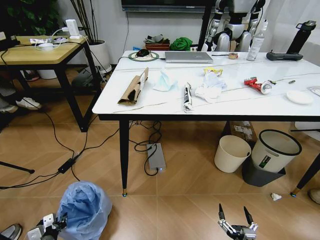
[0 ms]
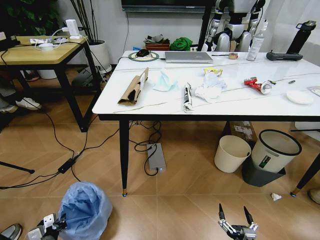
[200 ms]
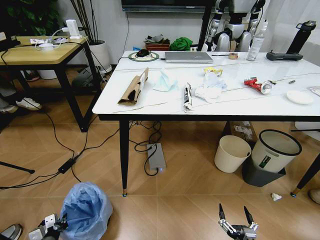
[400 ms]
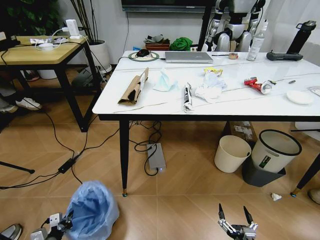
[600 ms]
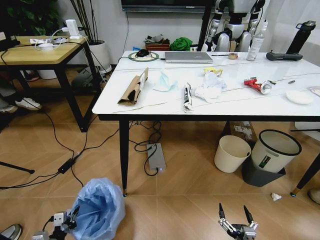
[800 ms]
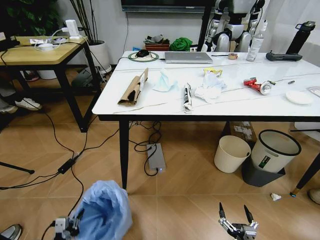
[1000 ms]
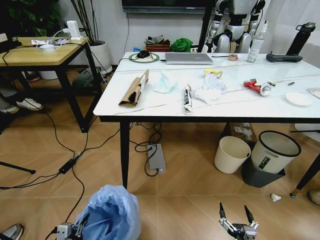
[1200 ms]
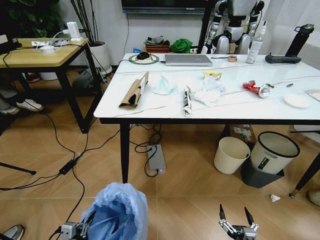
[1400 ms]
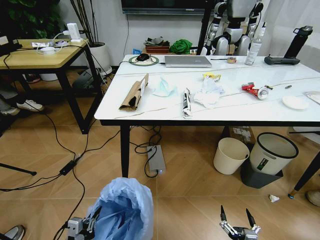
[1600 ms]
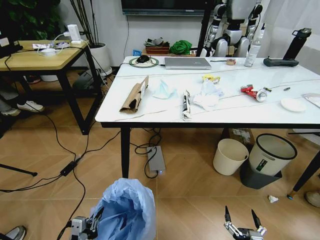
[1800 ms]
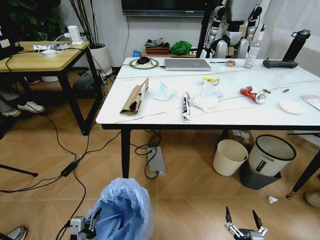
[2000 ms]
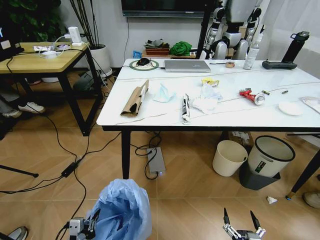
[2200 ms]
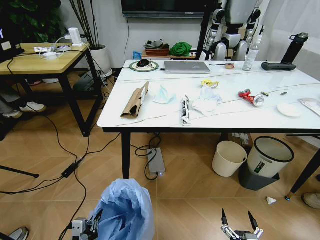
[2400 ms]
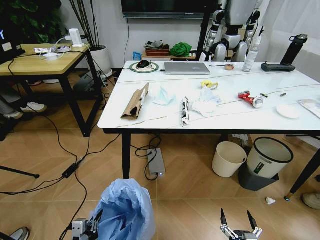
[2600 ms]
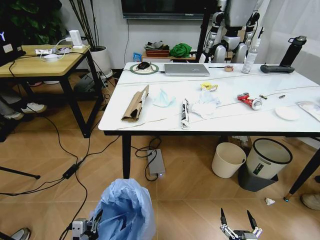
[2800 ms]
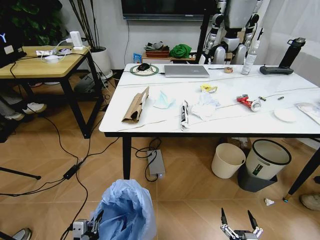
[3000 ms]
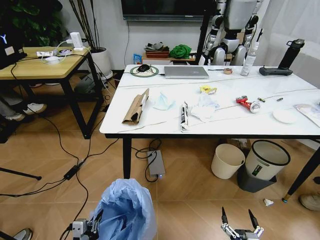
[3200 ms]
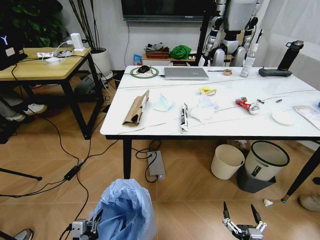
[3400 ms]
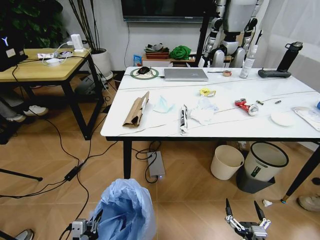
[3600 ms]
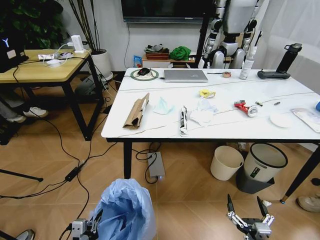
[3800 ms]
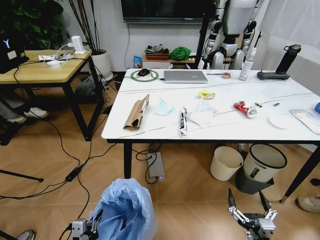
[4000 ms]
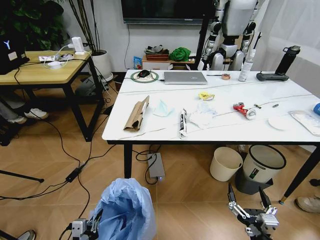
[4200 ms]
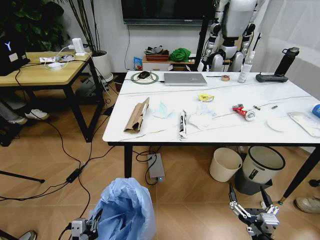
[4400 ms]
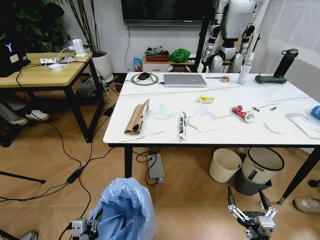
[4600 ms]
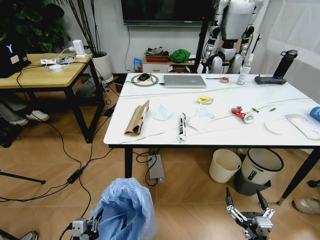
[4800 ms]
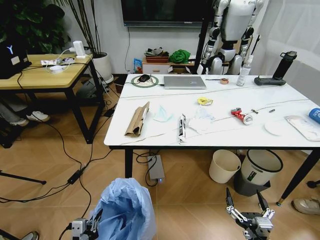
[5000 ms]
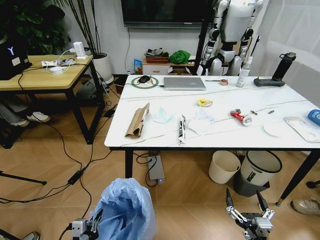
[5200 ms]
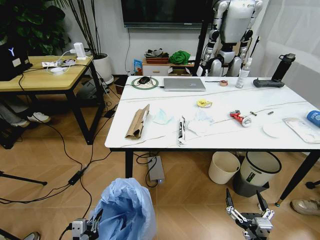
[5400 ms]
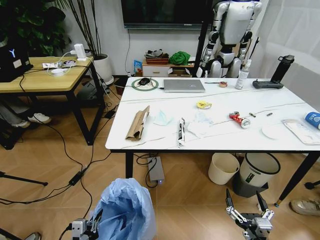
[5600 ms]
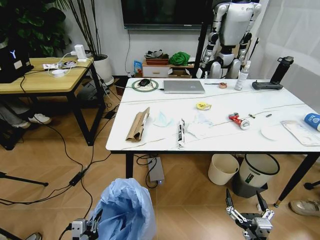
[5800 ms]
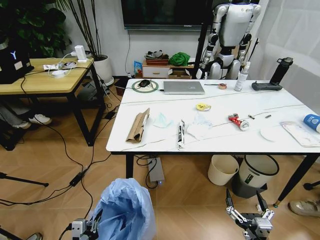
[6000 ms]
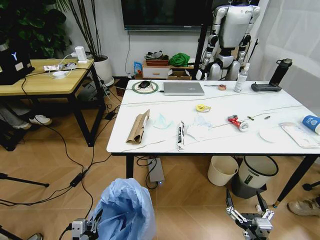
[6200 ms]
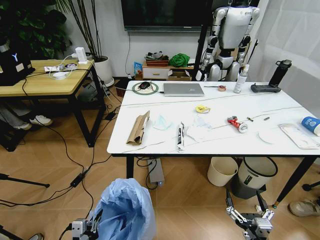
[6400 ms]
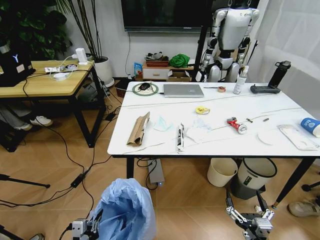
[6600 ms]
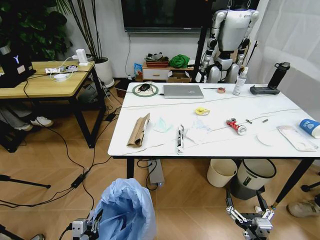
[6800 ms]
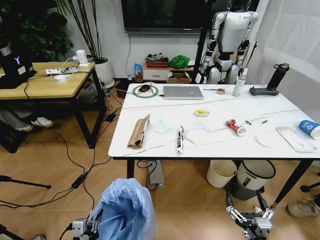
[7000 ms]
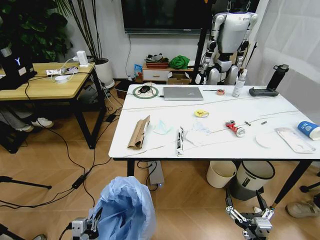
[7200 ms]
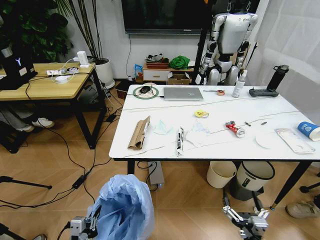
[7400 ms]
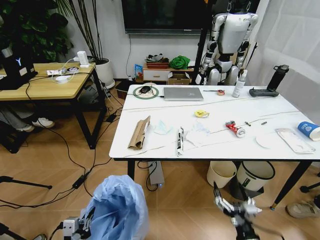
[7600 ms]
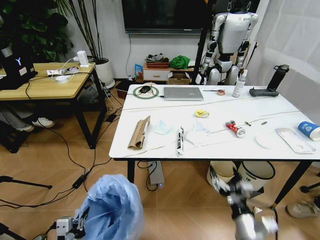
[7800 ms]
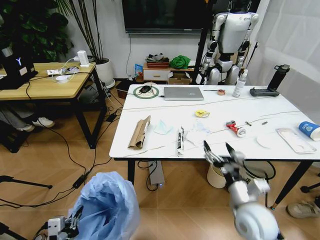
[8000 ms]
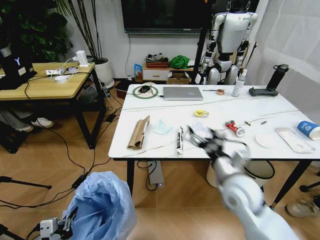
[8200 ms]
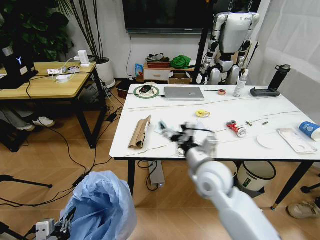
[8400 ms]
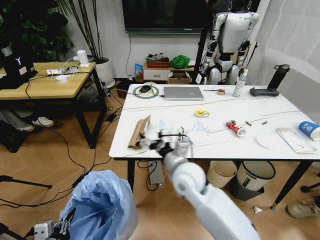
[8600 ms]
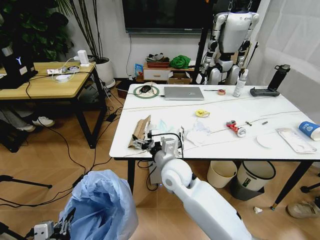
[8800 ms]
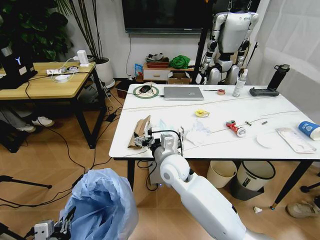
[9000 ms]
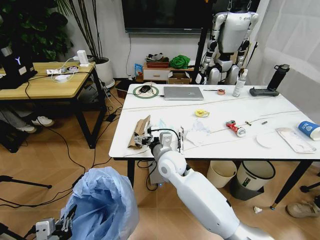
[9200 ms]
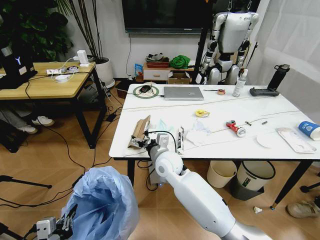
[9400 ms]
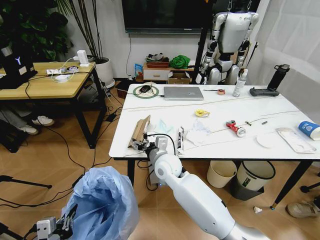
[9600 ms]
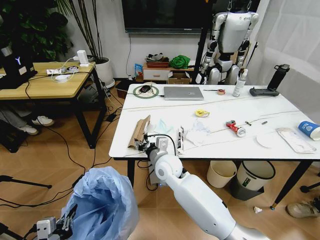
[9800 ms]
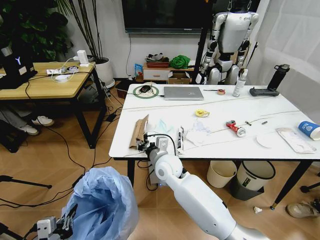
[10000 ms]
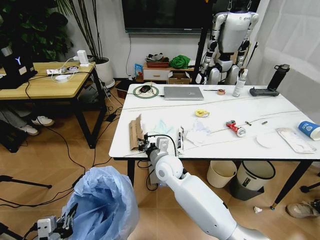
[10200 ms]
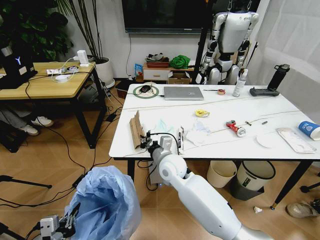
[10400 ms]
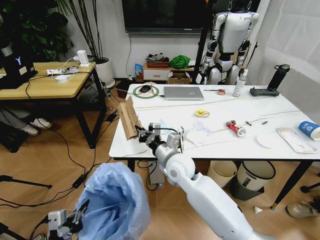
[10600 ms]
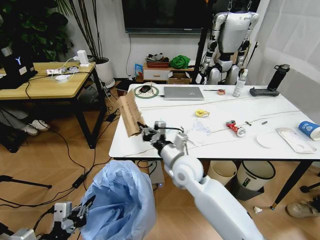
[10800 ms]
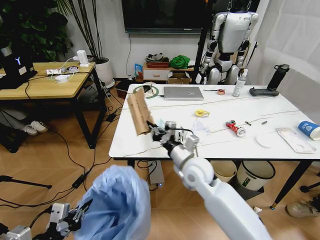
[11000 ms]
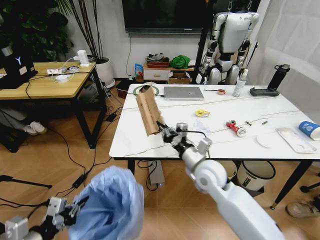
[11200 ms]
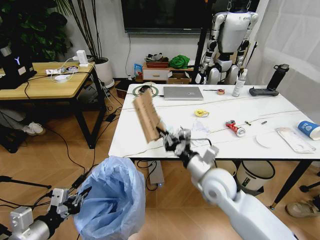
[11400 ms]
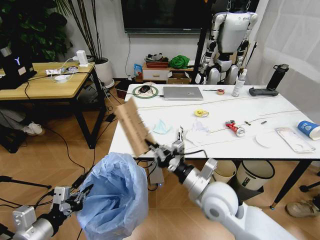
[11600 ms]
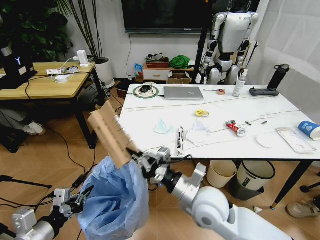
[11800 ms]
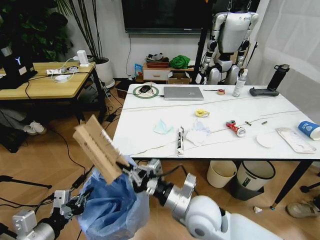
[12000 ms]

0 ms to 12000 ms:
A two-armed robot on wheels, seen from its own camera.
Task of the whole recording: Pick up the trash bin and place the trash from the table into it.
0 ms to 1600 ms: The left gripper is displaced upward, to the right and backward by about 20 cm.
3000 ms to 4400 ms: The right gripper is displaced upward by approximately 15 cm.
7600 ms to 9000 ms: The right gripper travels forward, to the left and upward by roughly 40 cm. Meanwhile the left gripper moves upward, about 5 cm.
9000 ms to 10400 ms: The right gripper closes up.
10400 ms to 12000 ms: The left gripper travels forward and upward by some 10 cm. Meanwhile the right gripper shifts some 15 cm backward and to the right.

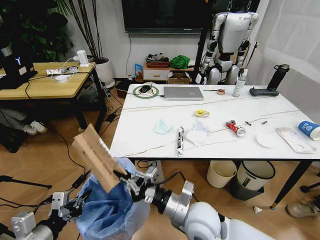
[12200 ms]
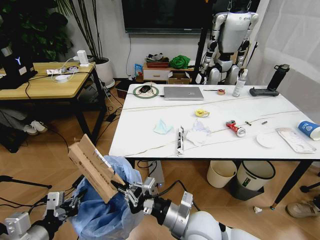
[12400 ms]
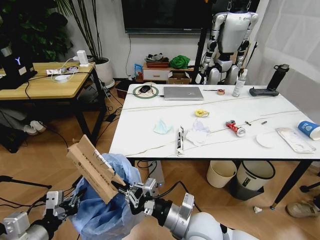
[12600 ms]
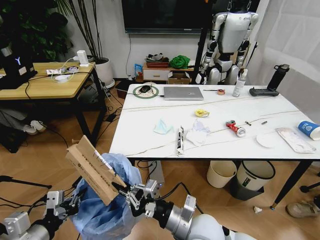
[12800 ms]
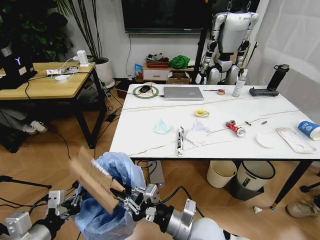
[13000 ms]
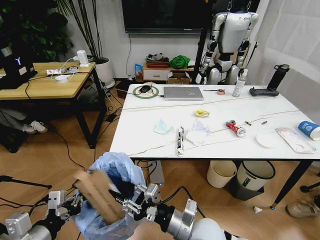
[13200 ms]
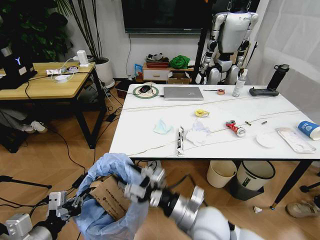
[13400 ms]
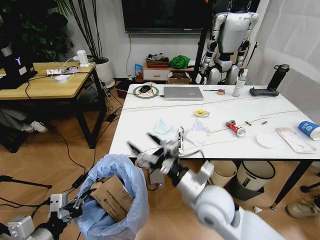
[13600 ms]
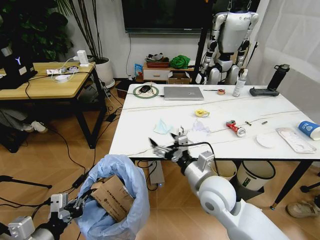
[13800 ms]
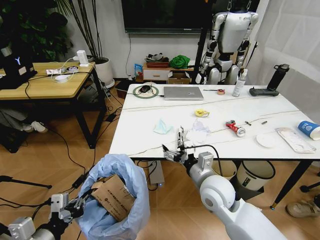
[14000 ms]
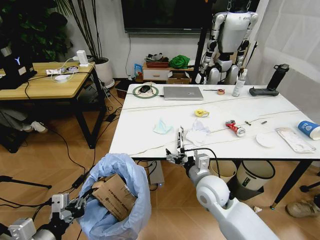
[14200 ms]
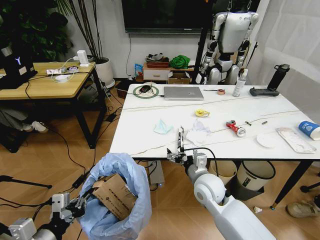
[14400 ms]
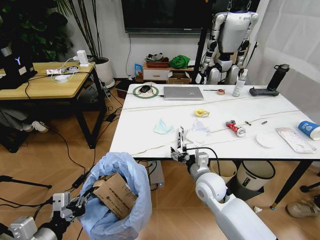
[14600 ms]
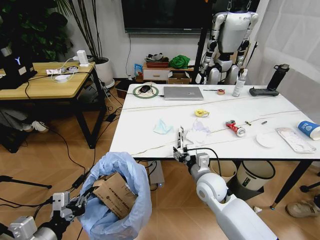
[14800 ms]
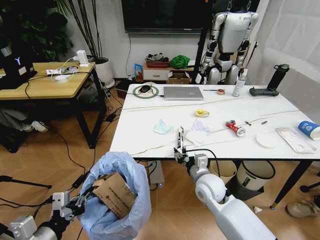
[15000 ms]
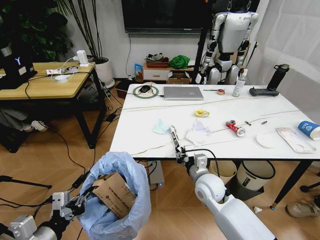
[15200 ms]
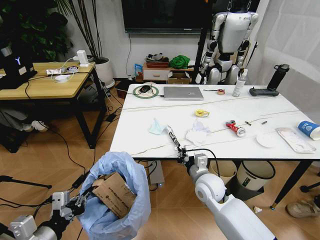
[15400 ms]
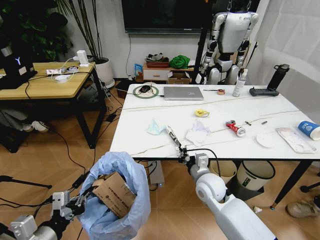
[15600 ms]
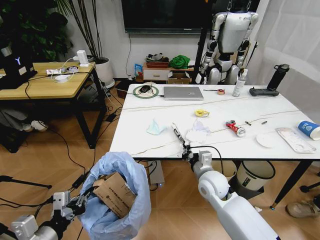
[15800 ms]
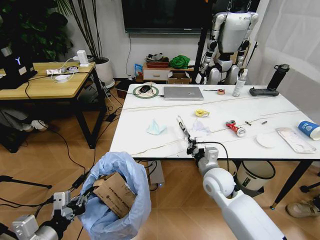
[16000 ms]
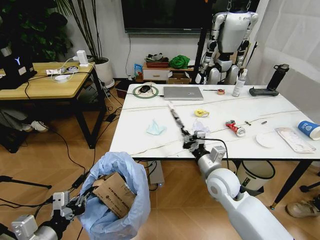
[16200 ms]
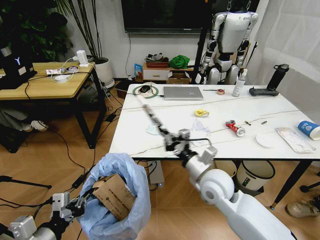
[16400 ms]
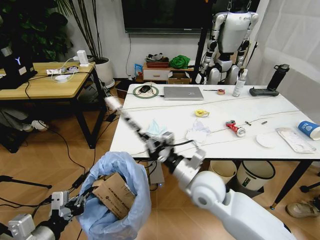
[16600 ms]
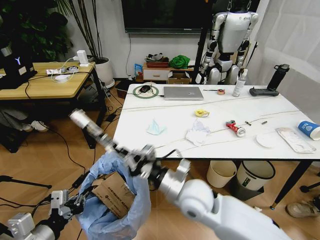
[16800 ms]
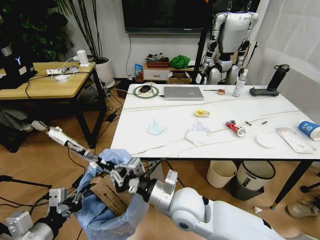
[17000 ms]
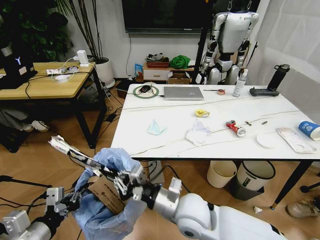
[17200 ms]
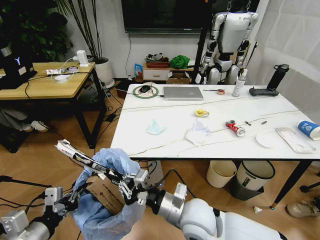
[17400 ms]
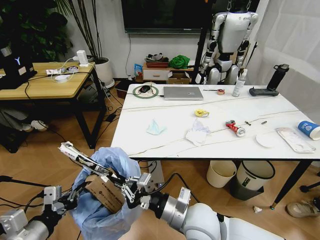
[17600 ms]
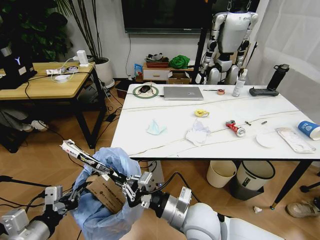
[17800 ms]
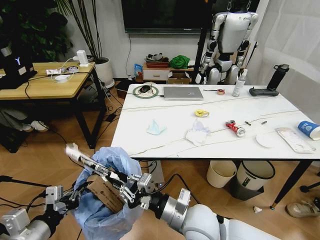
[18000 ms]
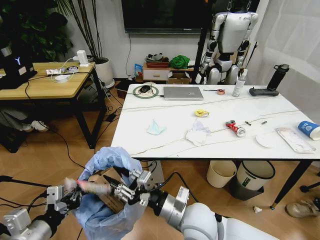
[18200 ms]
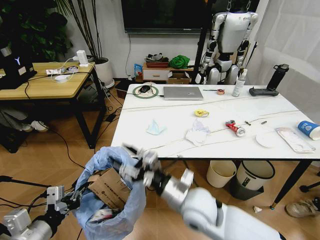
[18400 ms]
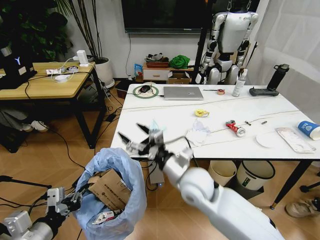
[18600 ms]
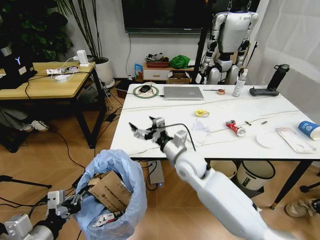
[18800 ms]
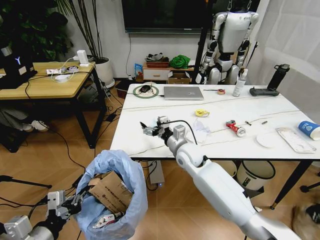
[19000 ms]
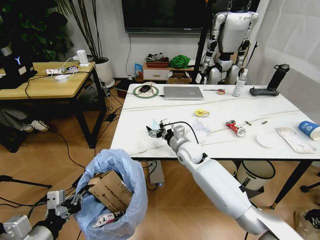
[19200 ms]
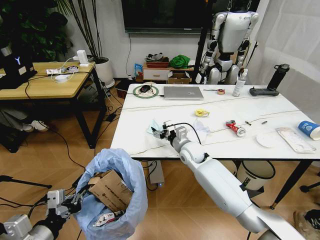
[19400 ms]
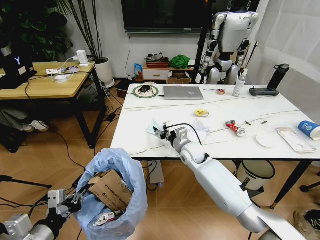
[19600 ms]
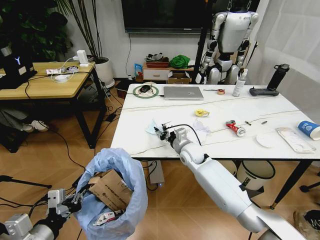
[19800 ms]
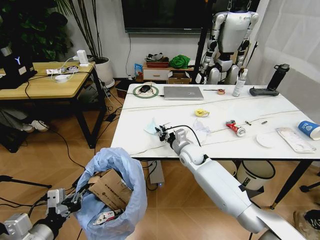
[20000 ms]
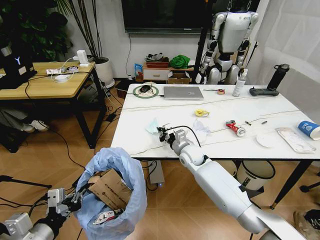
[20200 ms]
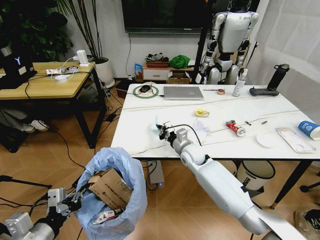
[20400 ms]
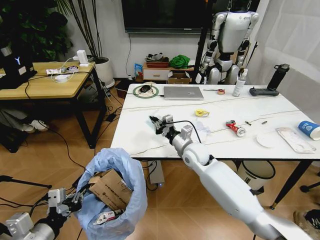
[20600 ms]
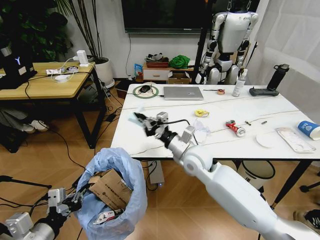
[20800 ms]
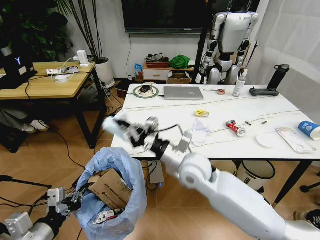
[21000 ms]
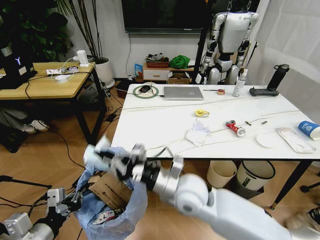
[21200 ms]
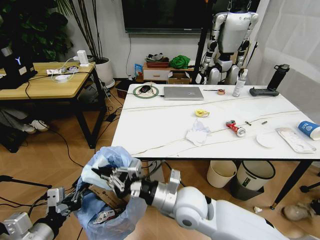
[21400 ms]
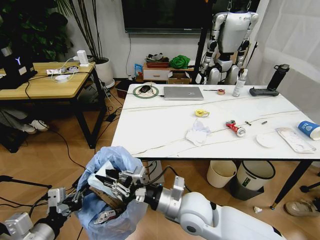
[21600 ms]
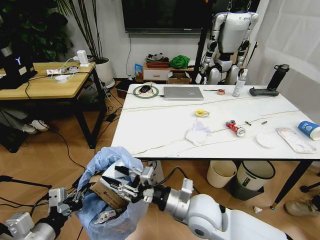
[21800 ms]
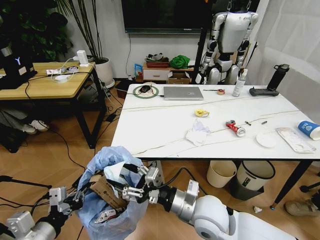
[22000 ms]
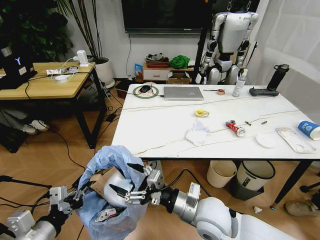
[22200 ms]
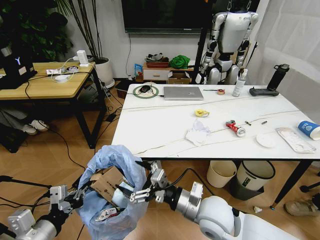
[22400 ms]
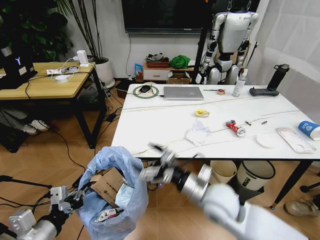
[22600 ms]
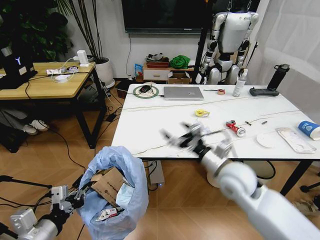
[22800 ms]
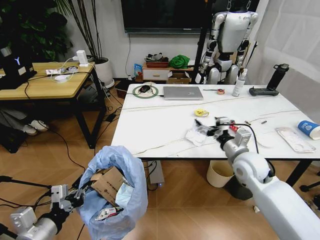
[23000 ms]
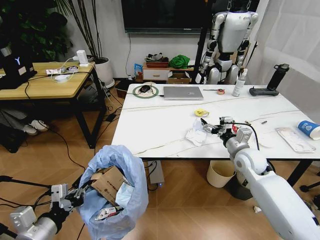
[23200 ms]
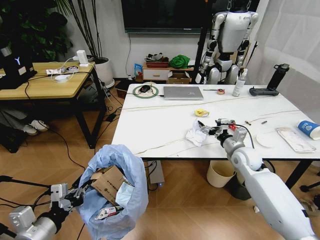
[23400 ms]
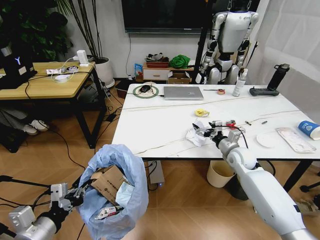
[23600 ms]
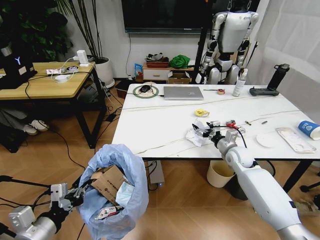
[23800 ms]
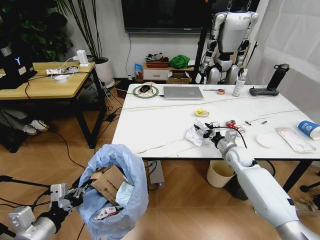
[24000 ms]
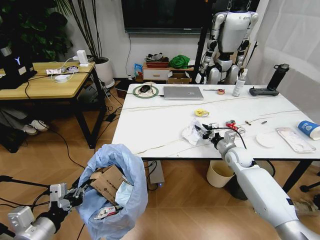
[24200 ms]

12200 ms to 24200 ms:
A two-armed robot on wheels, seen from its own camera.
Task of the whole recording: Pick up the trash bin and place the trash from the table into it.
12200 ms to 13800 ms: The right gripper travels forward by approximately 5 cm, and opens its fingers.
13800 ms to 15200 ms: The right gripper shifts approximately 10 cm downward and forward, and closes up.
15200 ms to 16600 ms: The right gripper heads upward, covering some 10 cm.
16600 ms to 18200 ms: The right gripper heads backward, covering about 10 cm.
18200 ms to 19800 ms: The right gripper heads forward, covering some 25 cm, and opens and closes again.
19800 ms to 21200 ms: The right gripper is displaced backward and upward by roughly 20 cm, and closes.
21200 ms to 22600 ms: The right gripper travels to the right by about 10 cm, and opens.
22600 ms to 24200 ms: The right gripper moves forward, to the right and downward, approximately 30 cm, and closes up.
